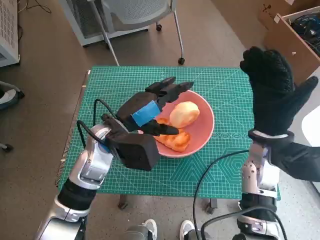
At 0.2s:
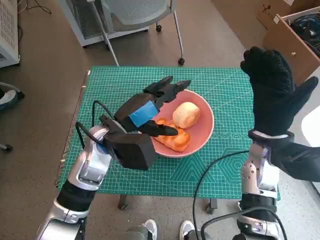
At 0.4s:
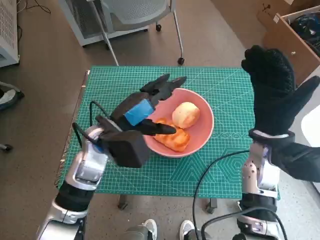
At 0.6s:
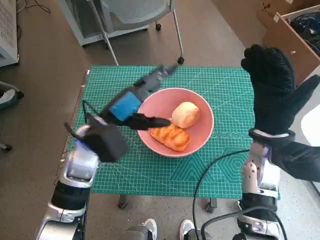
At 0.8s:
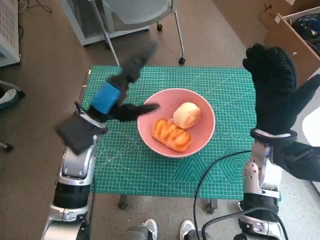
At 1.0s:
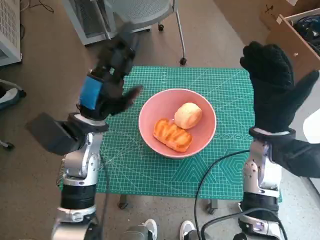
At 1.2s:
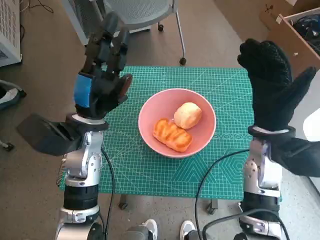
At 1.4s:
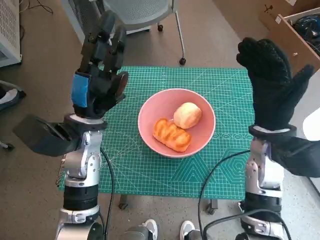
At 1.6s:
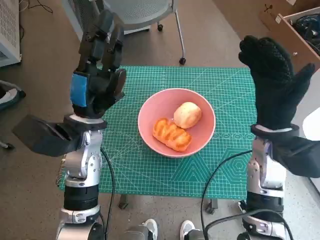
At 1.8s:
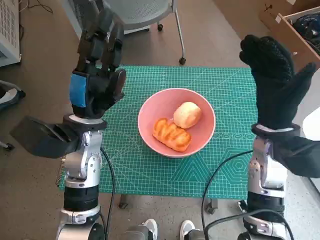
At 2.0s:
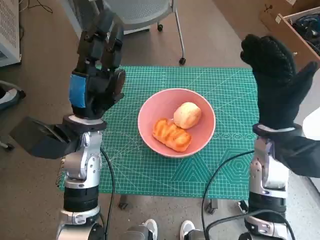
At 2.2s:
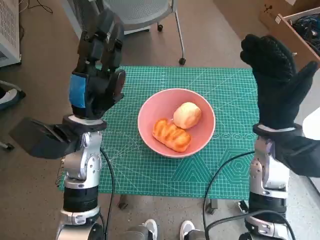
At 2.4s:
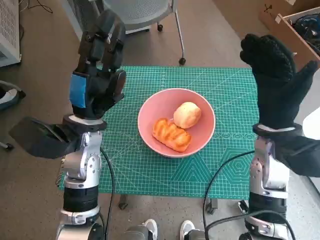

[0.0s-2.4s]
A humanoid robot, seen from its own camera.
1.2s to 2.4s: There are only small adjustments of the hands.

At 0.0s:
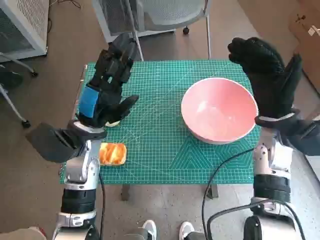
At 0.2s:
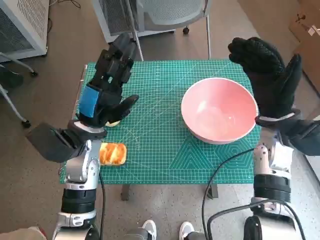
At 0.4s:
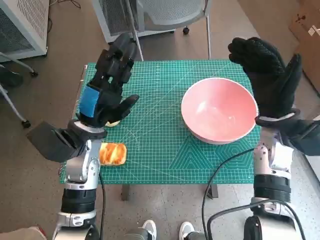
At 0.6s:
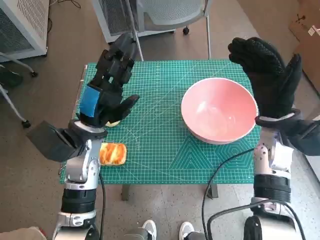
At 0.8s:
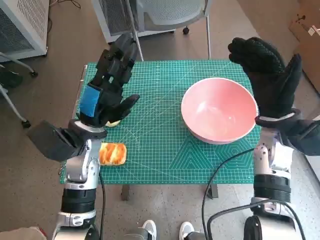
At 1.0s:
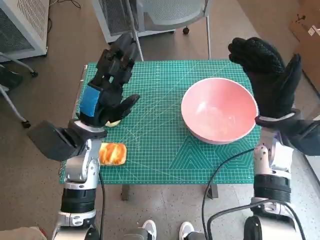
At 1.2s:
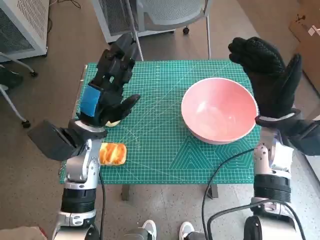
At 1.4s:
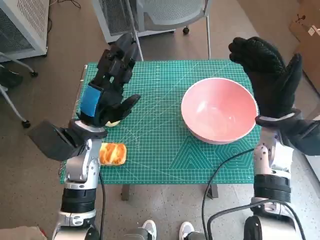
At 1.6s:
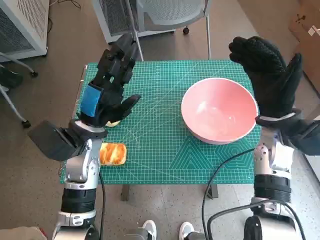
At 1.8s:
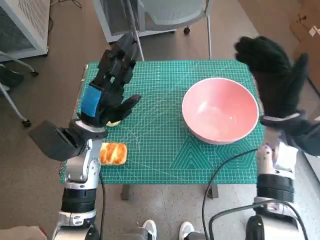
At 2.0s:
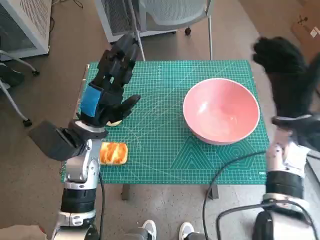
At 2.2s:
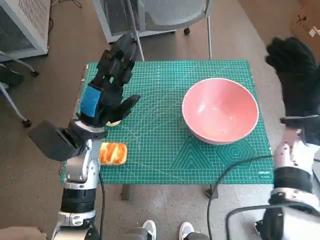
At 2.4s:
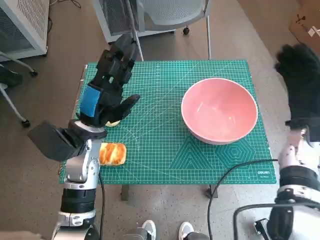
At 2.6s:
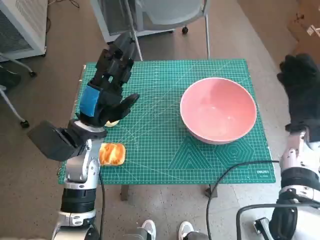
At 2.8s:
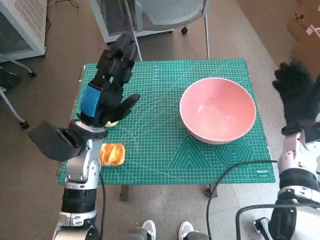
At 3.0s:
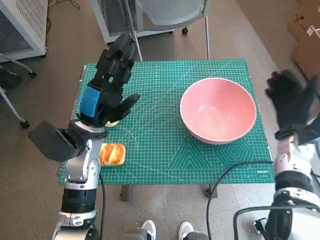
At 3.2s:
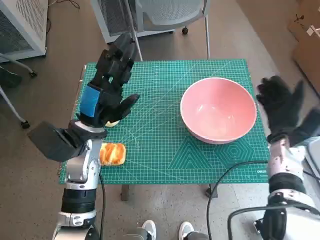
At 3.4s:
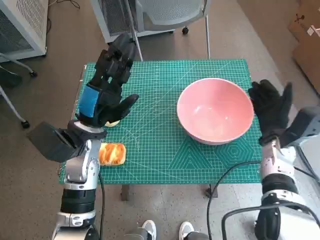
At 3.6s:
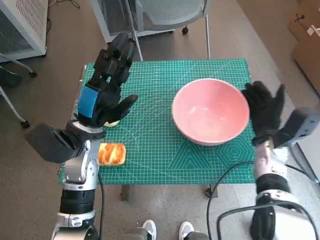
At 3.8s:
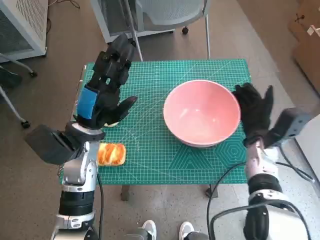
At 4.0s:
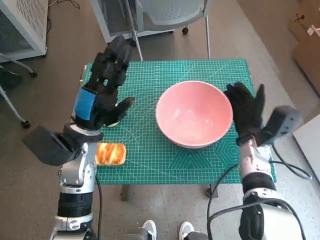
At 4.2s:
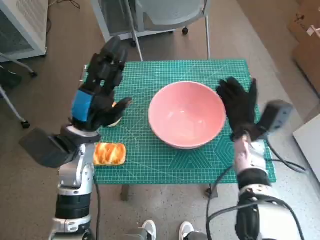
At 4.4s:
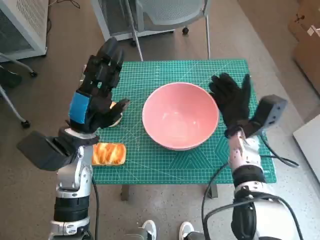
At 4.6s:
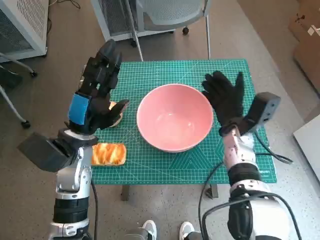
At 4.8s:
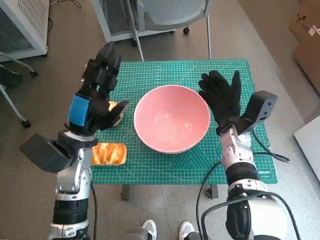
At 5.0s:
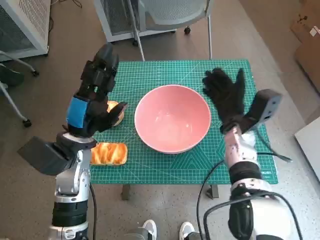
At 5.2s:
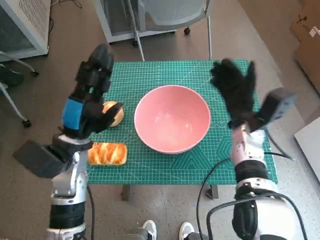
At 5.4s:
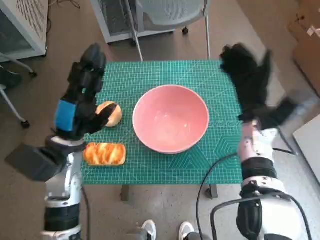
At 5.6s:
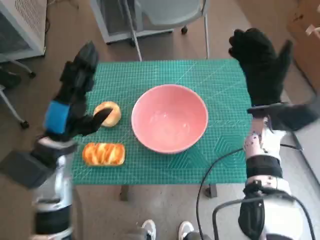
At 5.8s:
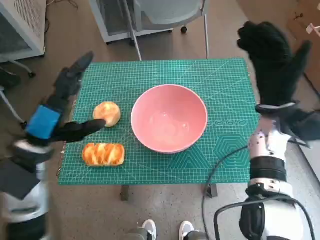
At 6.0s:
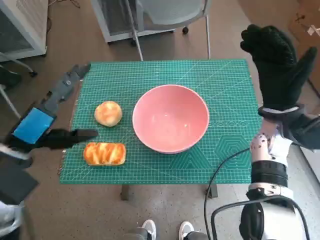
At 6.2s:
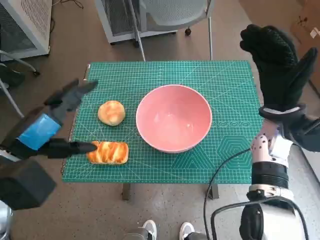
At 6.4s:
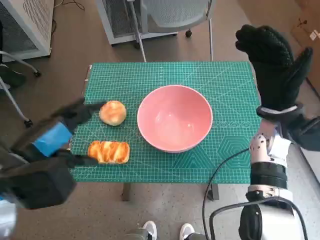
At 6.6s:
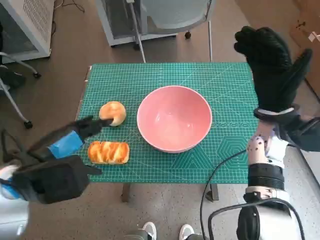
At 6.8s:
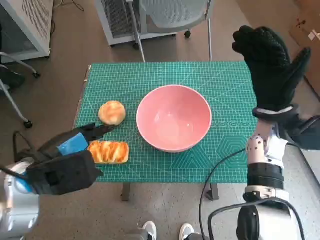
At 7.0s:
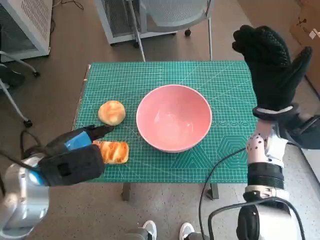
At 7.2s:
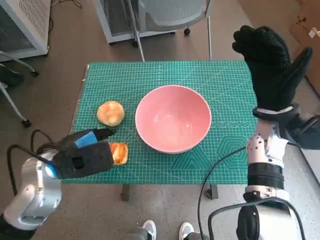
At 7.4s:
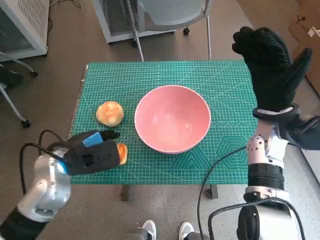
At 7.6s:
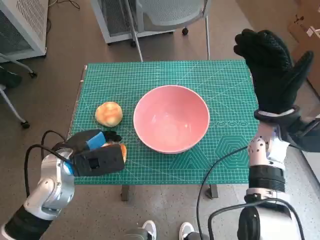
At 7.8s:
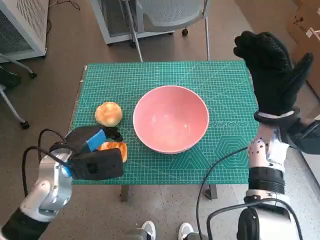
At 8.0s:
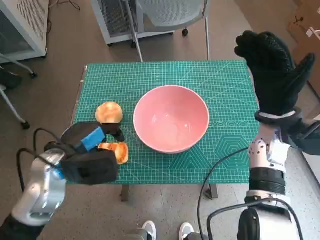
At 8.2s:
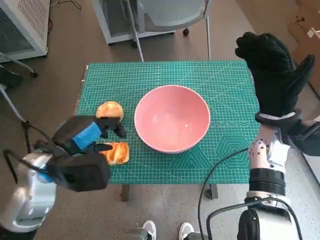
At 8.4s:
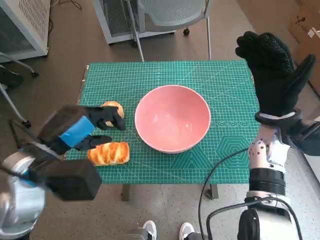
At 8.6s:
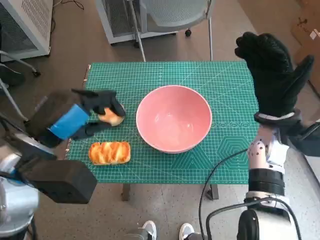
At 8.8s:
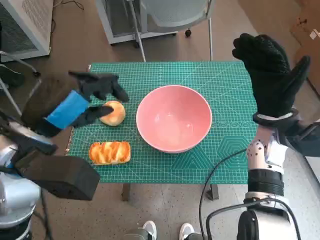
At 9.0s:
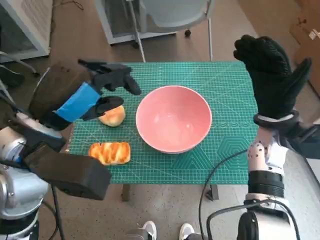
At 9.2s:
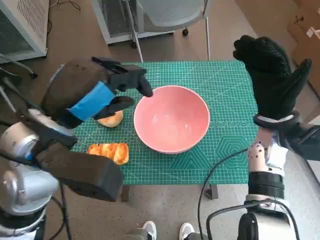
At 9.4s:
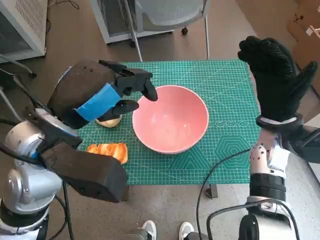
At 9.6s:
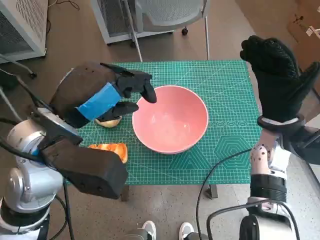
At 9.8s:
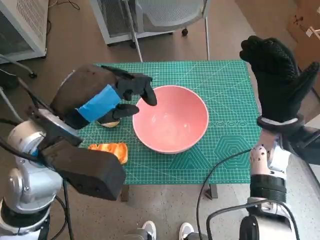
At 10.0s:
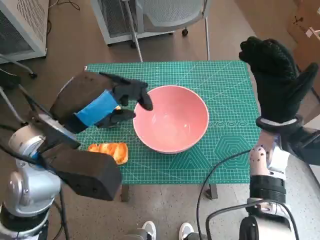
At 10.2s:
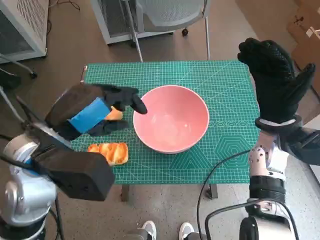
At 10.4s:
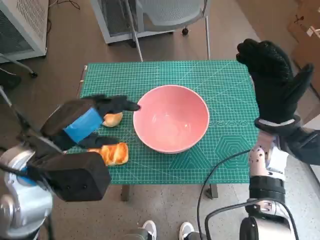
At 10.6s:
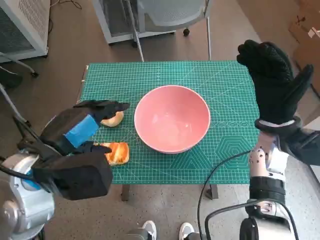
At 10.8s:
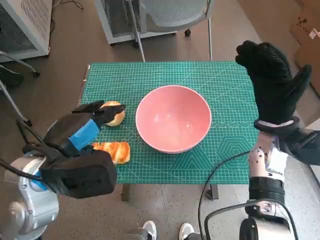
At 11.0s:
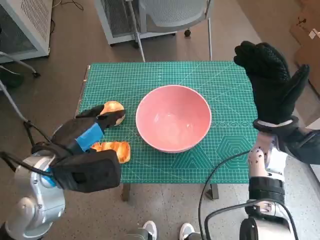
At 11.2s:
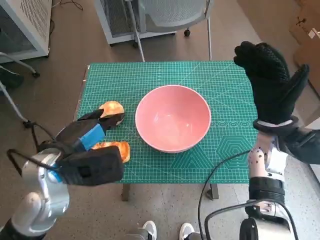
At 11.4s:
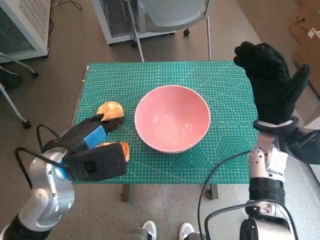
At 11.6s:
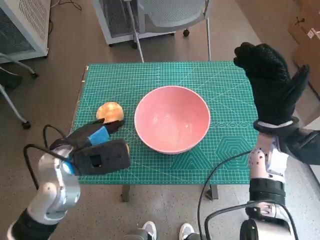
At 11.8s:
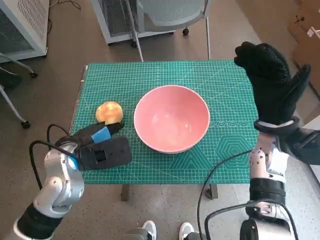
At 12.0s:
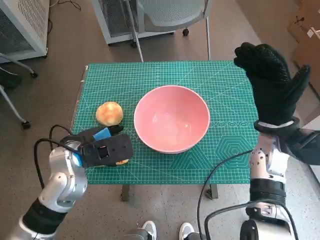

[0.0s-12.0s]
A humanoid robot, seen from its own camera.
Step, 0.0s to 5.0s: Move the pink bowl to the center of table with right hand.
Step, 5.2s to 8.0s: Grasp the long bread with left hand.
Step, 8.2s to 9.6s: Place the long bread in pink bowl with left hand.
1.6s to 3.0s: The right hand moves downward and to the right, approximately 10 cm.
3.0s to 4.4s: The right hand moves to the left, approximately 10 cm.
4.4s to 6.0s: The left hand is displaced to the left, backward and upward by approximately 10 cm, while the right hand moves upward, some 10 cm.
6.0s to 7.6s: The left hand travels downward by some 5 cm.
7.6s to 9.0s: The left hand heads upward, covering about 15 cm.
10.4s to 12.0s: The left hand shifts some 10 cm downward.

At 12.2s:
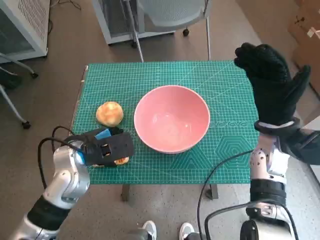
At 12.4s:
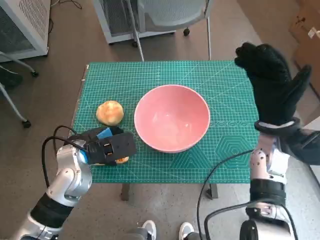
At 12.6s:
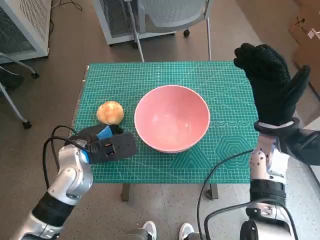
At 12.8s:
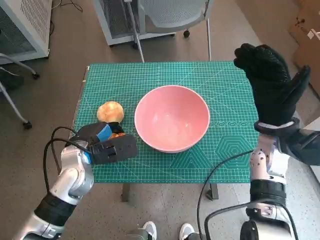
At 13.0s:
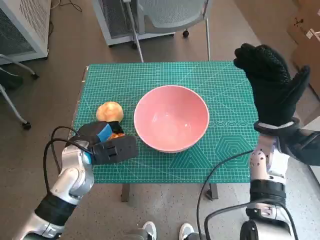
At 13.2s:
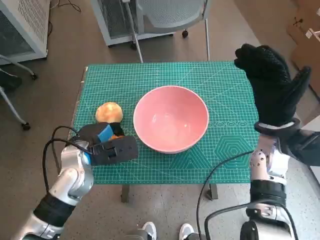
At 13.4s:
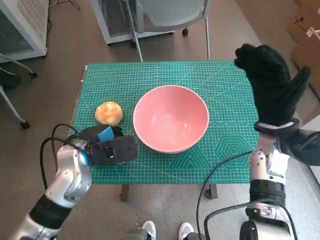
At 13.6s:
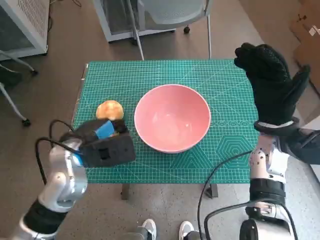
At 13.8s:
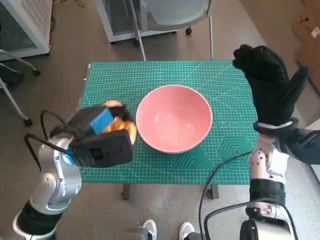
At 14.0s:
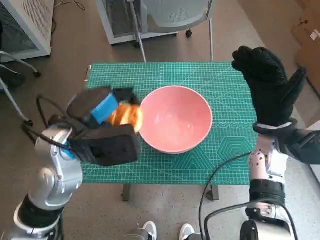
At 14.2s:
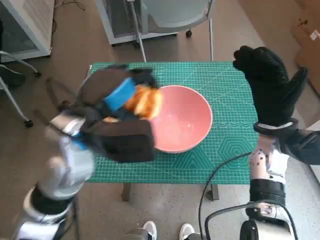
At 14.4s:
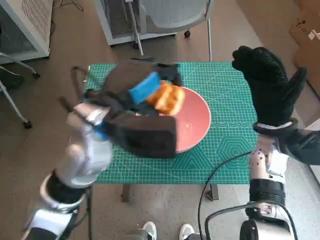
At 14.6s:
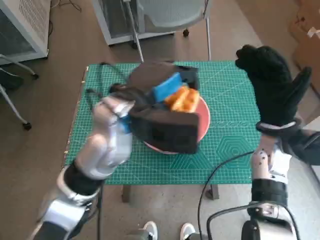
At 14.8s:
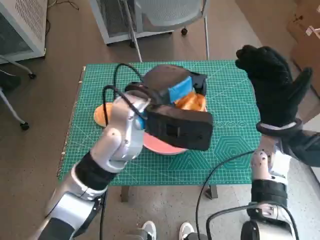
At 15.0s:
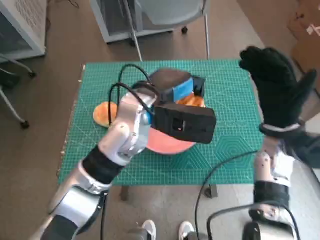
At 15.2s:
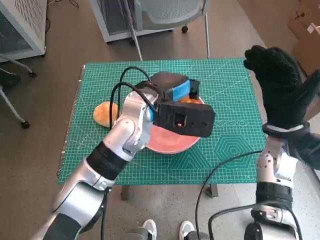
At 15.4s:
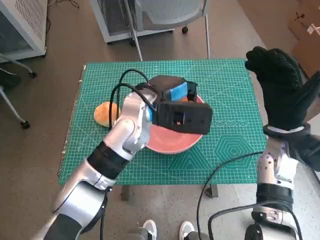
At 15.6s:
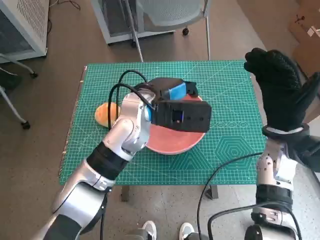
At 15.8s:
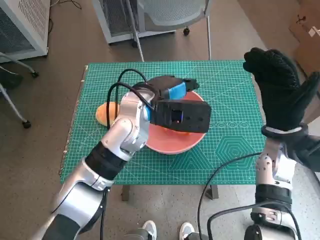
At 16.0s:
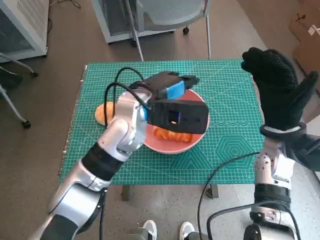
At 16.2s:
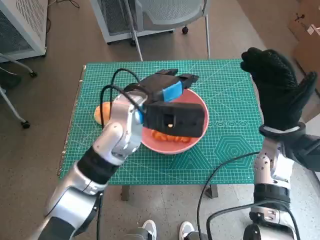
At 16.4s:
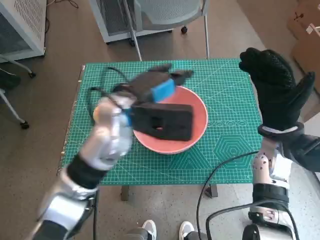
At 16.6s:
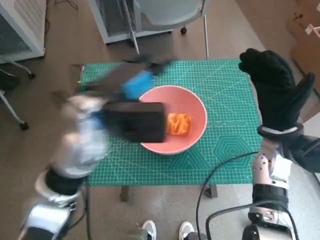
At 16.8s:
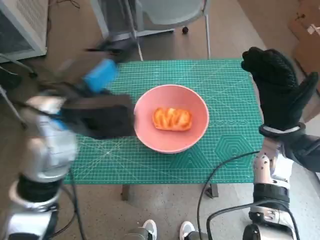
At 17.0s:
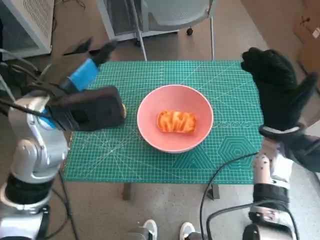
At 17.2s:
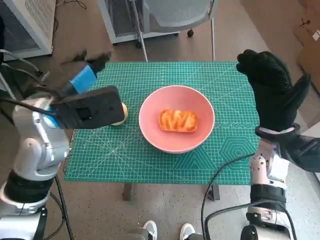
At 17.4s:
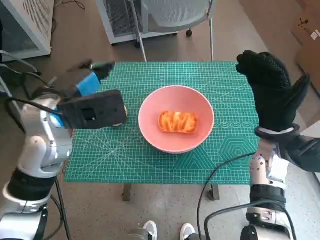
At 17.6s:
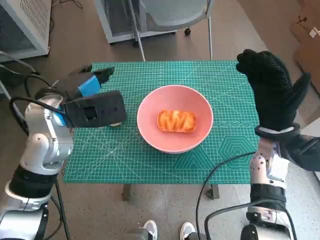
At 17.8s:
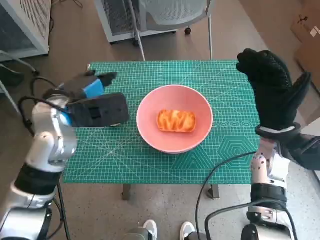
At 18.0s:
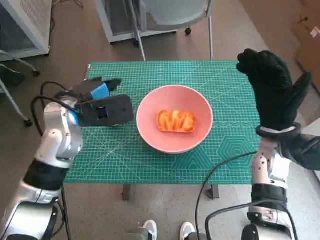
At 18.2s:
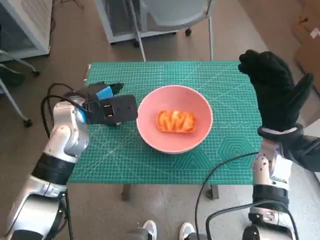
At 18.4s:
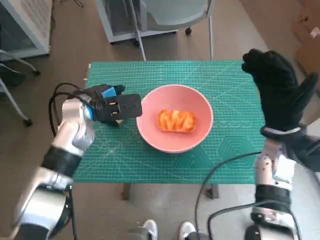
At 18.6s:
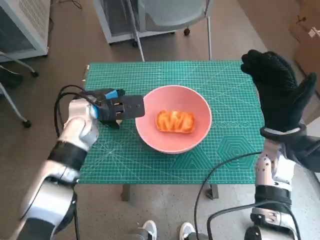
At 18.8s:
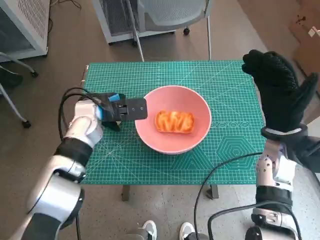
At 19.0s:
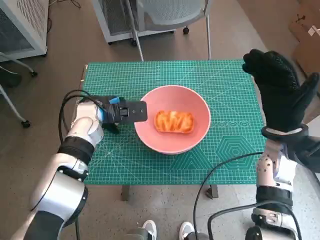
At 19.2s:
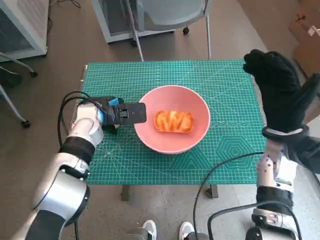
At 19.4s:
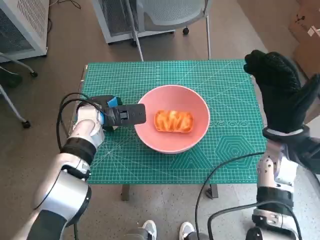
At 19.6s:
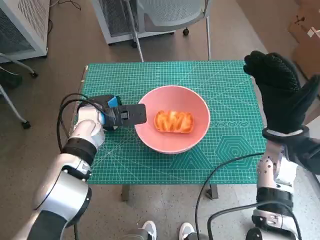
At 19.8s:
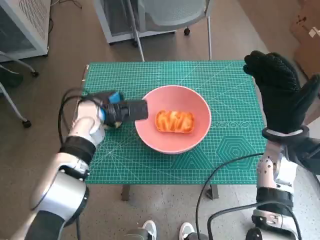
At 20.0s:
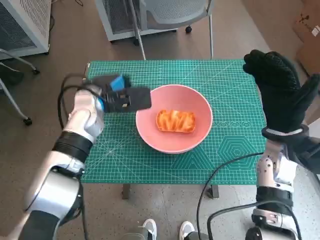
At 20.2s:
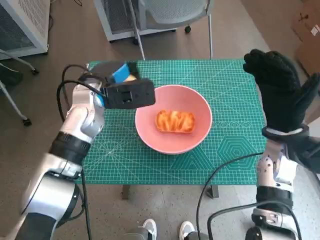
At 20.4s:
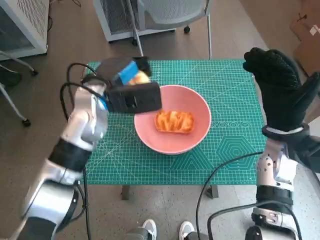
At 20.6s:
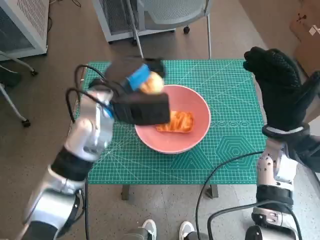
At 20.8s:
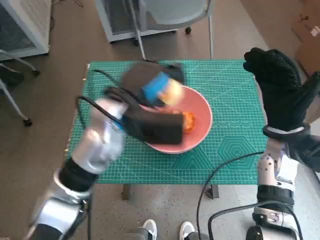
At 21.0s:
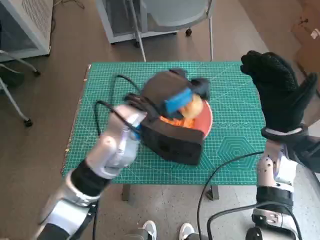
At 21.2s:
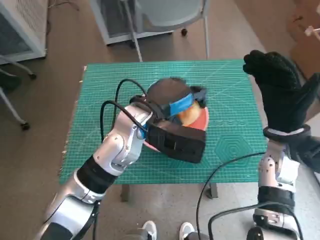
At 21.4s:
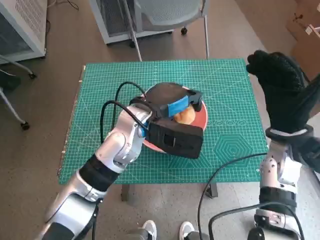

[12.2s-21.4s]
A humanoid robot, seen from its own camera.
Step, 13.0s to 16.0s: Place the long bread in pink bowl with left hand.
Step, 16.2s to 19.6s: Grasp the round bread with left hand.
13.8s to 15.2s: The left hand travels to the right and forward by some 15 cm.
15.2s to 16.8s: The left hand travels to the left, upward and backward by approximately 15 cm.
16.8s to 18.4s: The left hand is displaced downward and forward by about 10 cm.
18.4s to 19.8s: The hands move only a little.
19.8s to 21.4s: The left hand moves to the right and upward, approximately 15 cm.
